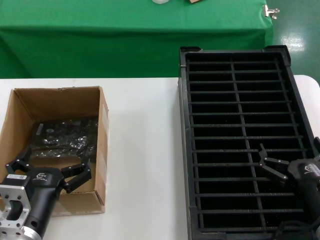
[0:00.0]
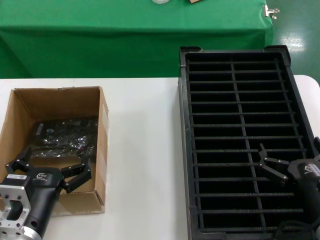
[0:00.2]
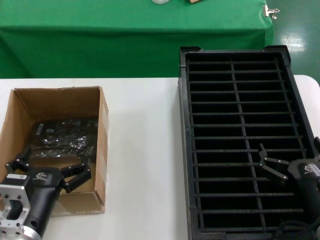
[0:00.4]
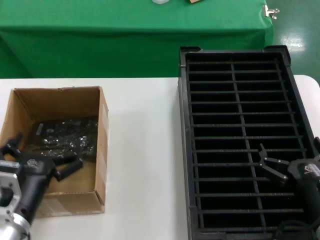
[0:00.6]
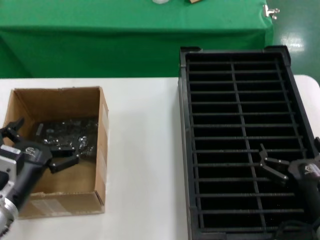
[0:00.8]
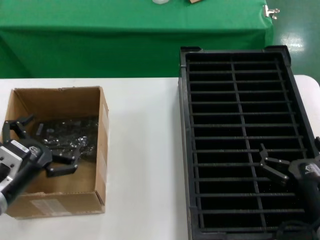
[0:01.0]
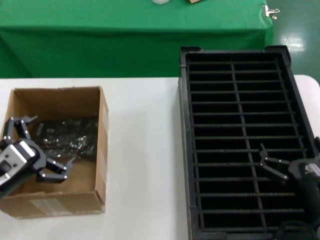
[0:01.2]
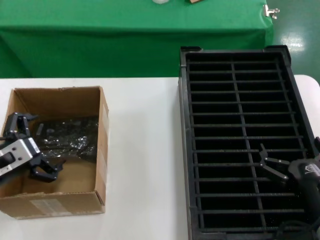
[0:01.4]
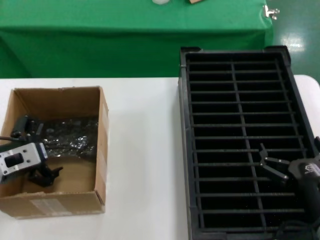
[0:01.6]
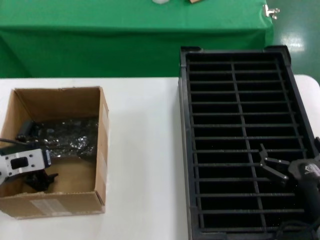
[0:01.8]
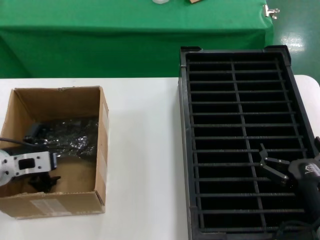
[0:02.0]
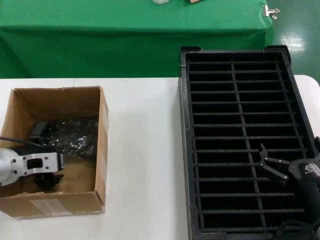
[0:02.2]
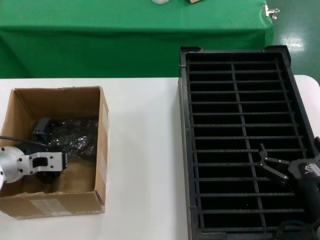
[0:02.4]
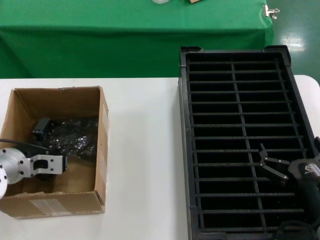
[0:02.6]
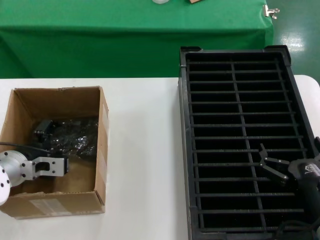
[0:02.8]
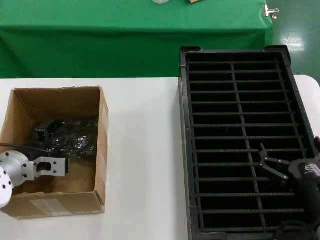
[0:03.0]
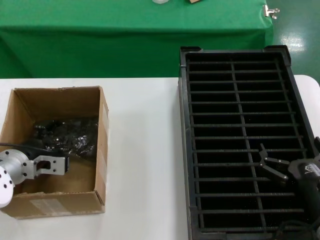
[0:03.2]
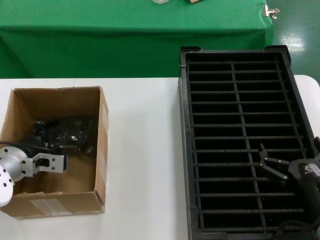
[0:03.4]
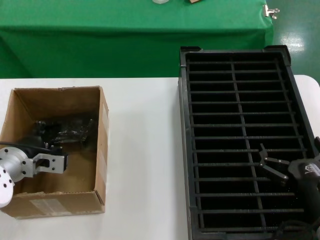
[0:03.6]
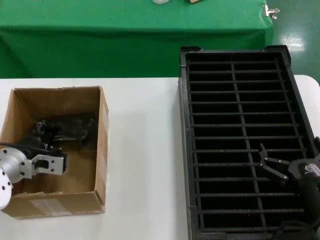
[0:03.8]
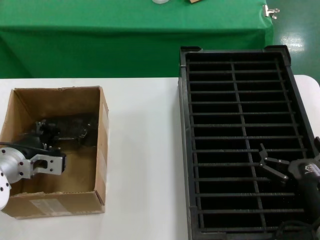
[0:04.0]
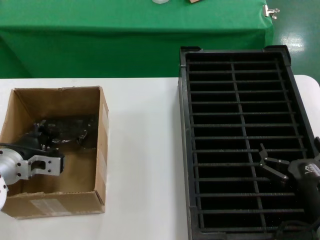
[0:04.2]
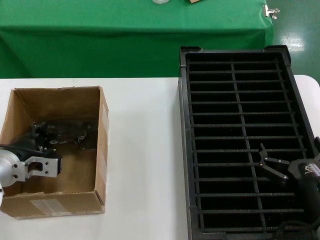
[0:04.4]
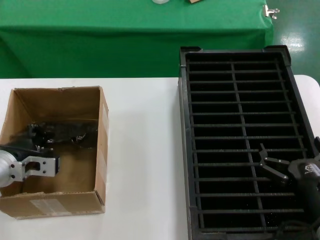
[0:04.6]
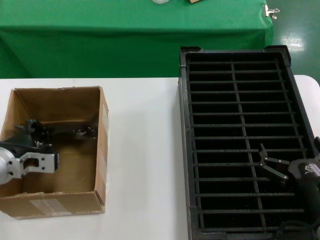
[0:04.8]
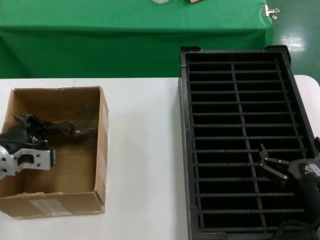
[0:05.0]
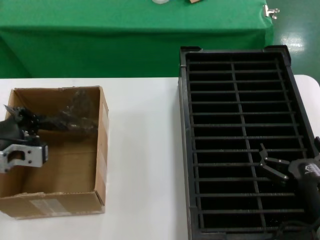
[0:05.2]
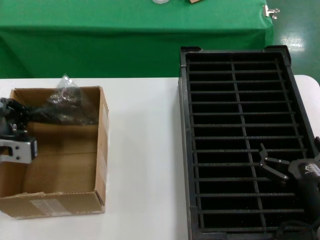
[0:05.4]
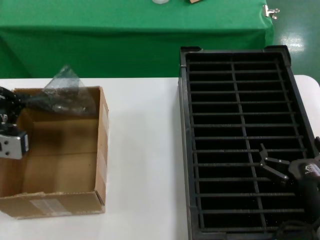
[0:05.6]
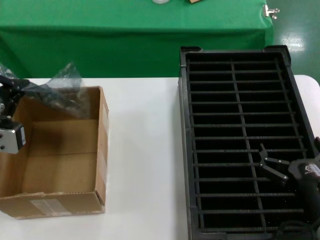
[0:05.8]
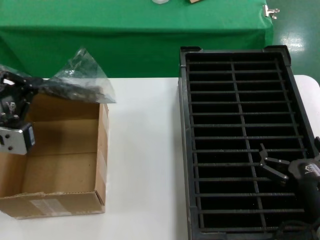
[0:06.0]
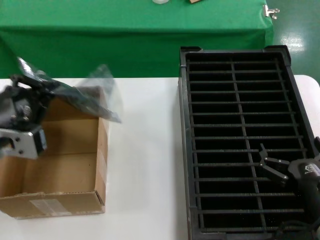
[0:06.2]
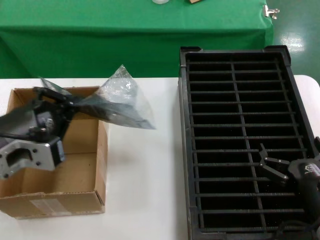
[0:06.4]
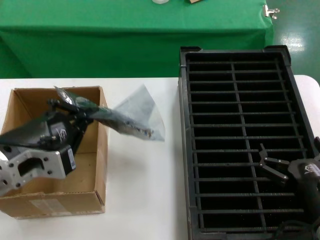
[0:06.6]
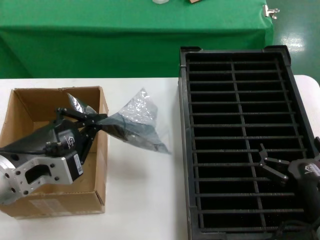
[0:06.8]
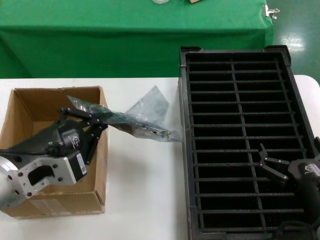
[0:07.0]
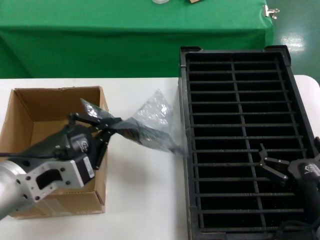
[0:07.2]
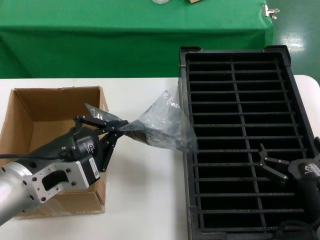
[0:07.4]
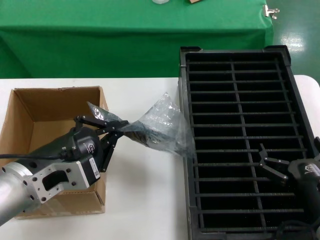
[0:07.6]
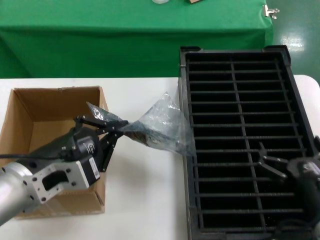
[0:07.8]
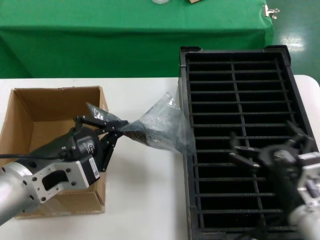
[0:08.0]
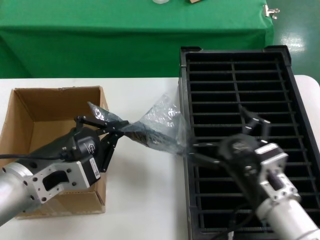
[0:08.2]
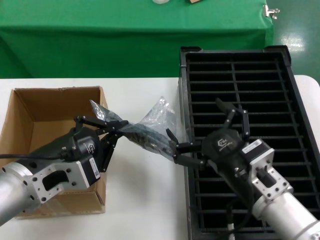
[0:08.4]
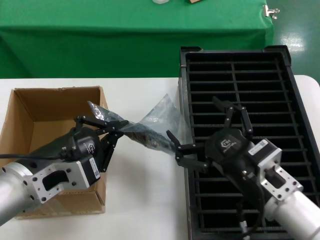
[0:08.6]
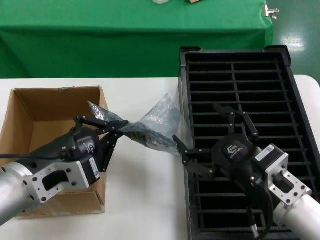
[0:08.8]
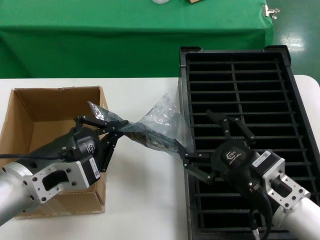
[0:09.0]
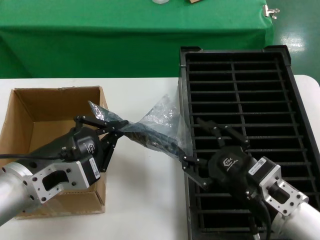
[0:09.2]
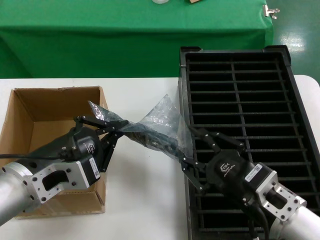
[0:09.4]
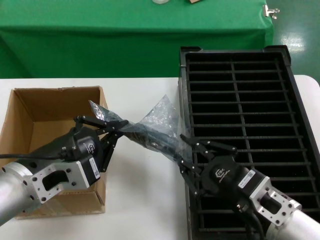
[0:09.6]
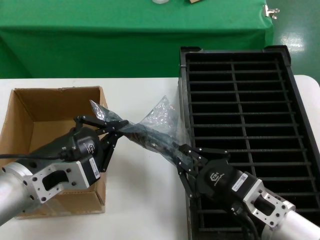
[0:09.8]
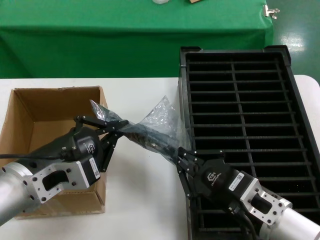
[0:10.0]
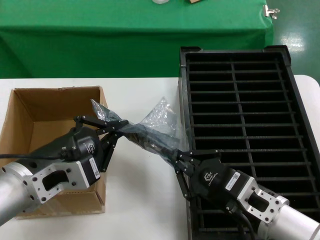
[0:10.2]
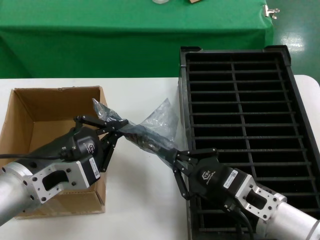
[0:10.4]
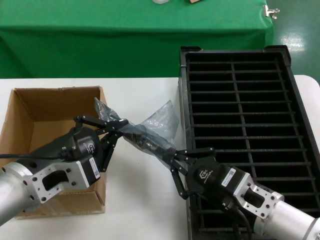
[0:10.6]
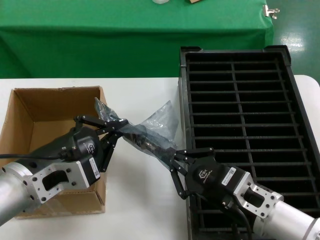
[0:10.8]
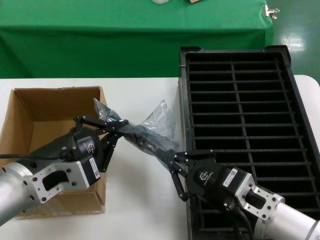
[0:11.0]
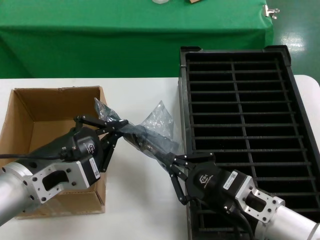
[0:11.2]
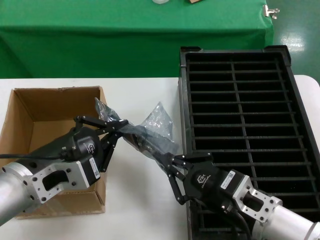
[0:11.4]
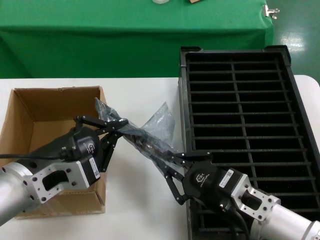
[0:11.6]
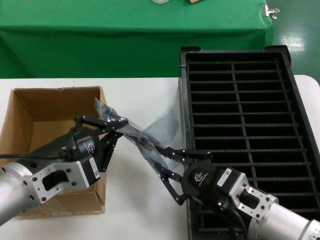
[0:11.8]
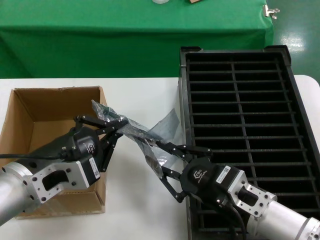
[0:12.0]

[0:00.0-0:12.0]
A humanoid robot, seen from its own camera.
Task of the whole recording: take out graphics card from box remove packaging put into black container.
Step, 0:00.0 to 0:04.4: Grasp the bag.
Step, 0:04.8 to 0:07.6: Lift the bag.
0:00.0 to 0:01.6: The left hand heads forward, to the left and upward, covering approximately 20 cm.
0:01.6 to 0:03.0: The left hand shifts approximately 10 cm forward and downward.
0:03.0 to 0:04.4: There are only small adjustments of the hands.
0:04.4 to 0:06.0: The left hand goes about 20 cm upward and backward.
0:06.0 to 0:07.6: The left hand is displaced to the right by about 10 cm.
0:07.6 to 0:09.0: The right hand is displaced to the left and upward by approximately 10 cm.
0:09.0 to 0:10.4: The hands move only a little.
0:10.4 to 0:12.0: Both hands stay put.

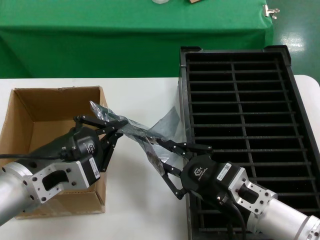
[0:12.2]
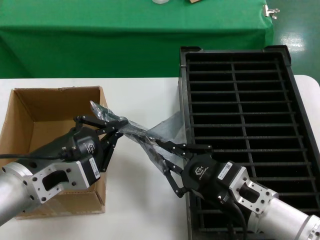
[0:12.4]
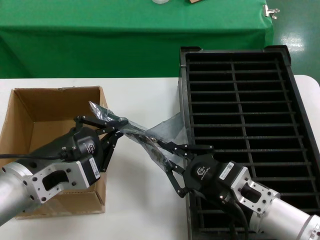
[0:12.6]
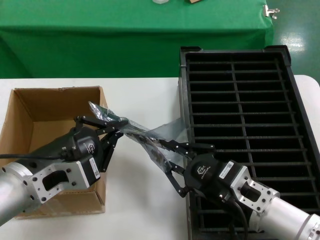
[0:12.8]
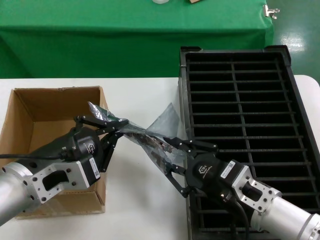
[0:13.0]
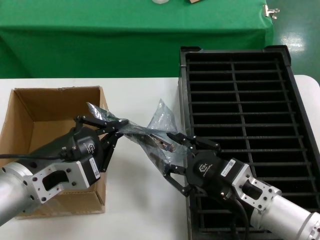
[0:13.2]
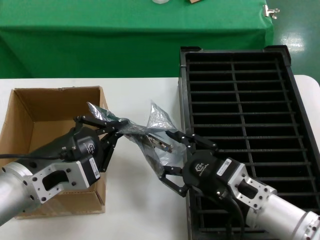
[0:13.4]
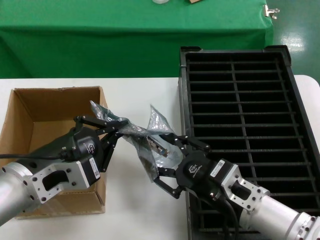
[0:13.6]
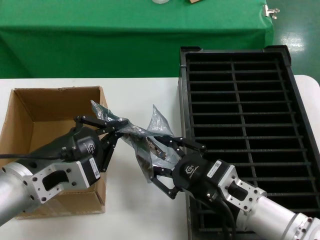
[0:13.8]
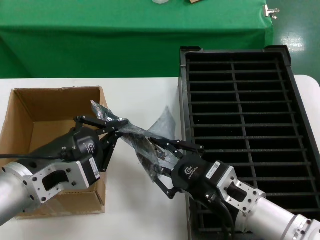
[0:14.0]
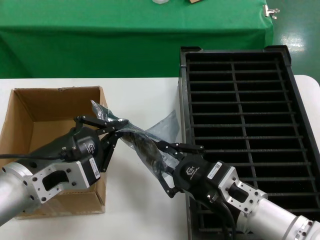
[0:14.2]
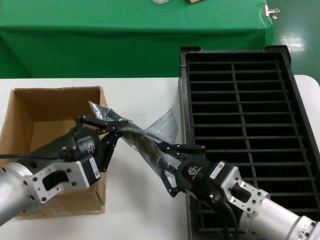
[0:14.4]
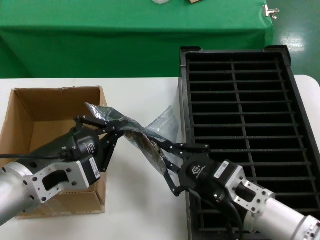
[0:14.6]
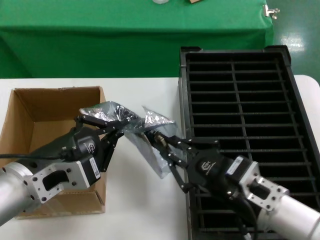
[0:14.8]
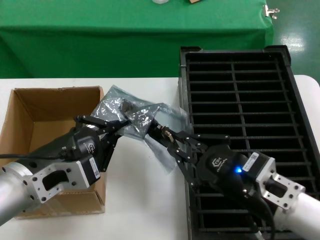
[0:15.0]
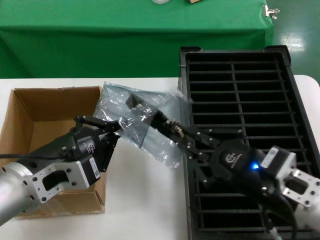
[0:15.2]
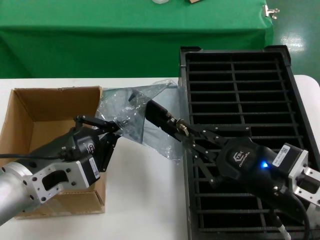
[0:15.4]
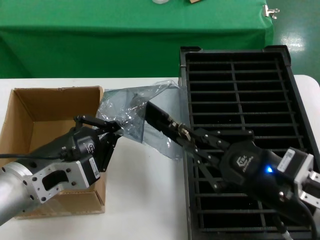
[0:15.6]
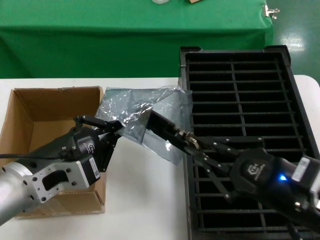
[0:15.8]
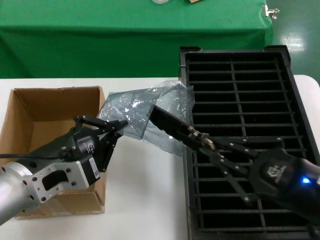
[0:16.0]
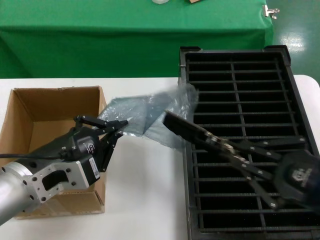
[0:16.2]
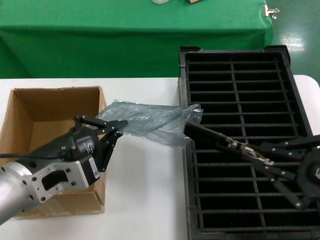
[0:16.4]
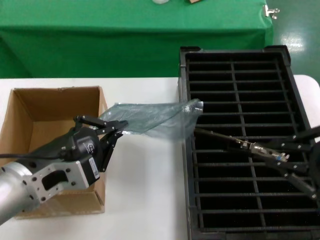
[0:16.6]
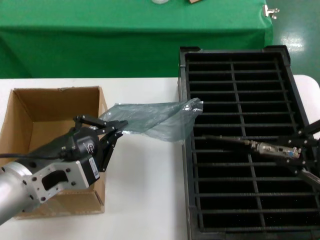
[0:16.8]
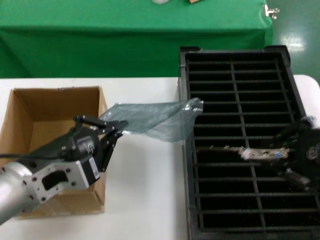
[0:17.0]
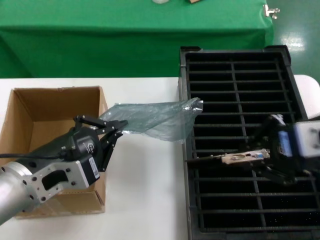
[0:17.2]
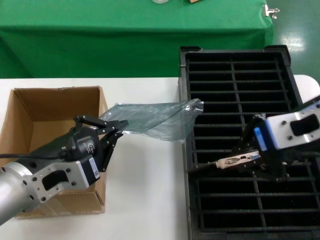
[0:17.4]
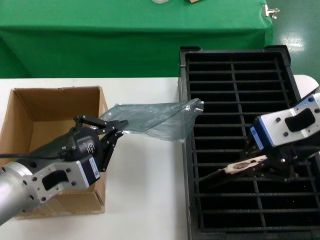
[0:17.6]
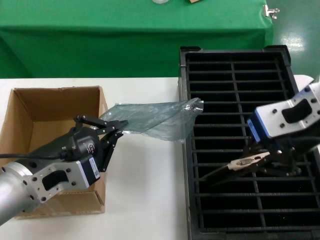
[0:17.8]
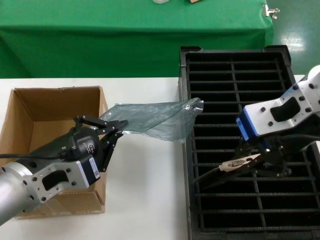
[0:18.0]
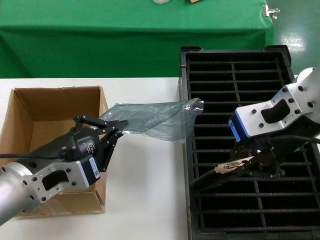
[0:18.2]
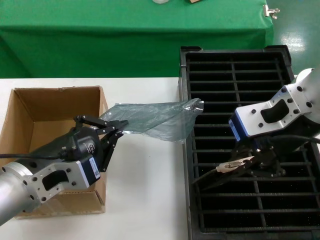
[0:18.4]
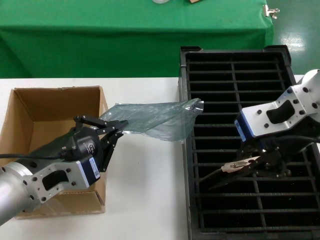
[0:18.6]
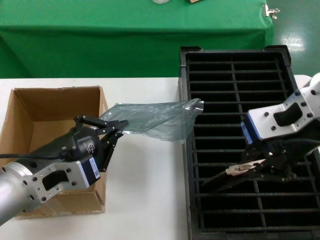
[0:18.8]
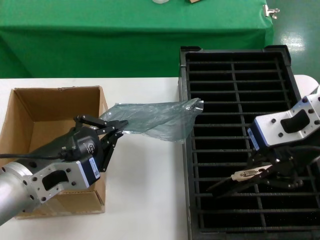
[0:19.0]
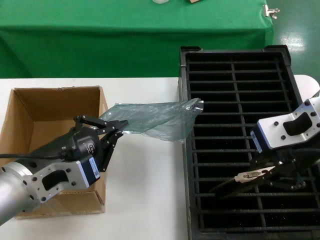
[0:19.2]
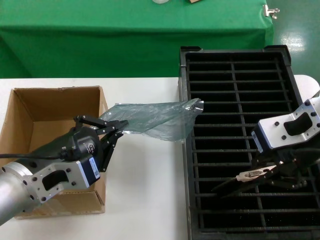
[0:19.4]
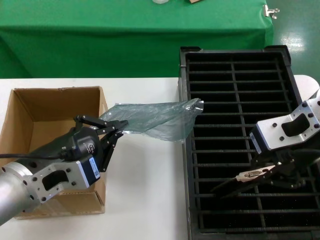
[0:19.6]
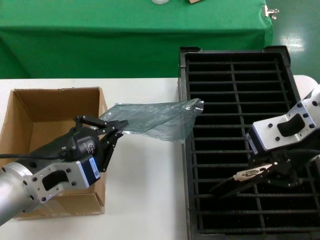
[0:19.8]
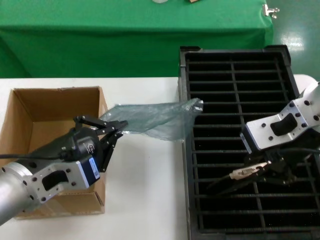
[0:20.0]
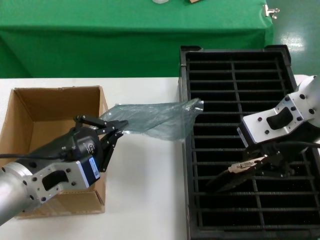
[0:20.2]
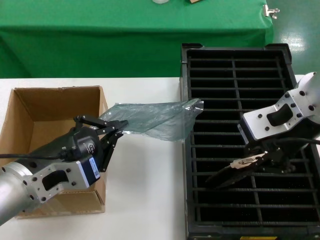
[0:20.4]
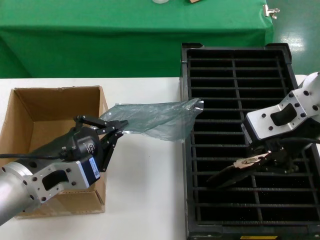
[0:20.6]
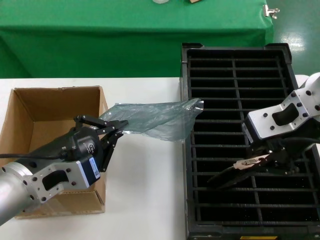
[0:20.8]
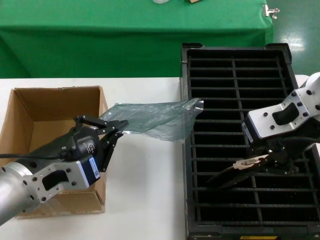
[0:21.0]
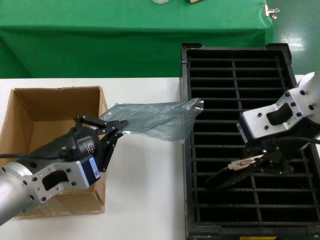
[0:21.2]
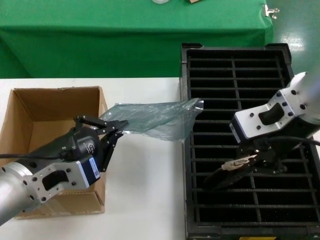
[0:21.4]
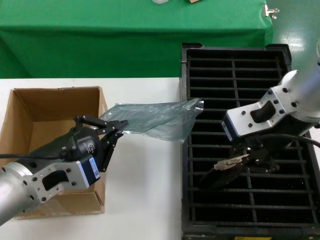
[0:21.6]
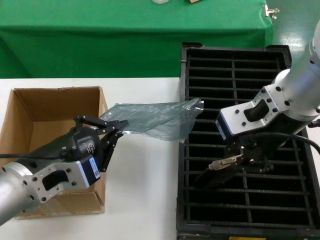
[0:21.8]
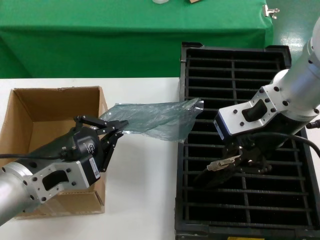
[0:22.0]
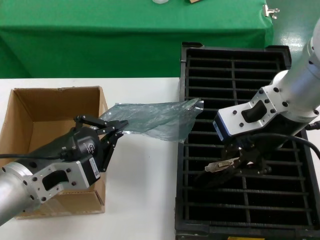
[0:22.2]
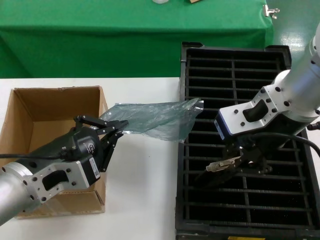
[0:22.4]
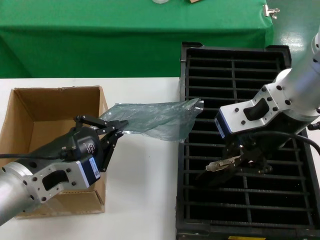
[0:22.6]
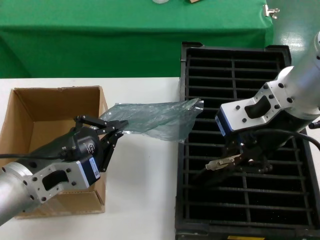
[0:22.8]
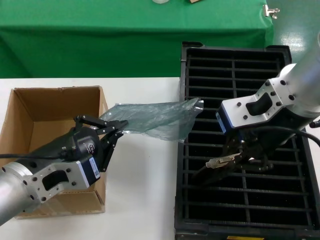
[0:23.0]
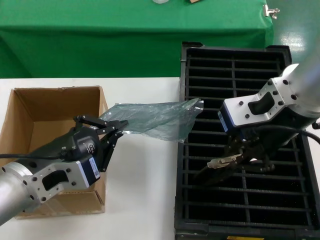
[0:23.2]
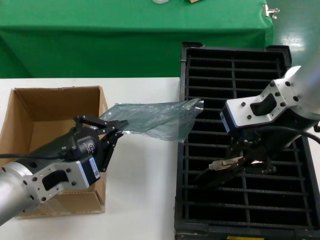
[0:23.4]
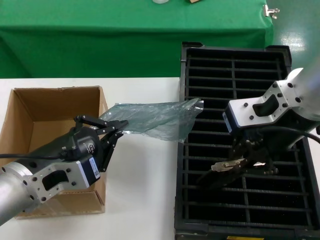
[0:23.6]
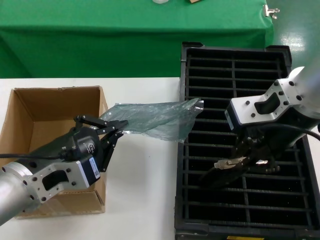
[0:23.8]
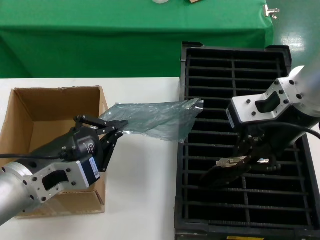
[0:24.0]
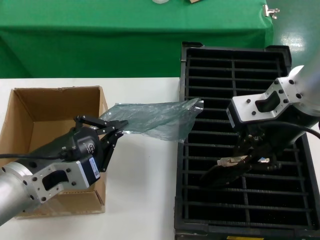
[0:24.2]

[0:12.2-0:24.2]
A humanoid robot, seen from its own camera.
Task of the whole recording: take out graphics card from box remove packaging put into black container.
Step, 0:12.2 to 0:16.2: Take out the hard disk of the bag.
0:12.2 to 0:13.8: There are only small adjustments of the hands.
0:13.8 to 0:15.2: The right hand moves upward and to the right, some 10 cm.
0:15.2 to 0:16.6: The right hand moves upward, to the right and backward, about 15 cm.
0:16.6 to 0:18.2: The right hand shifts about 20 cm to the left, forward and upward.
0:18.2 to 0:24.2: There are only small adjustments of the hands.
